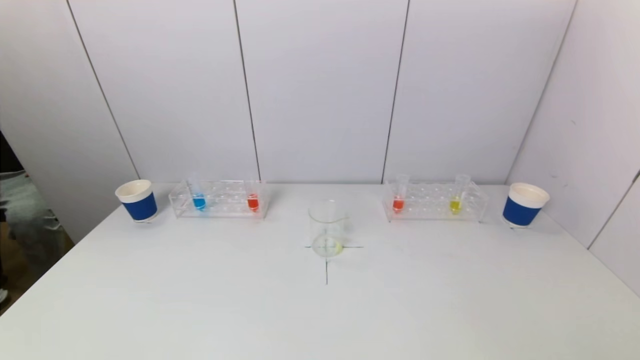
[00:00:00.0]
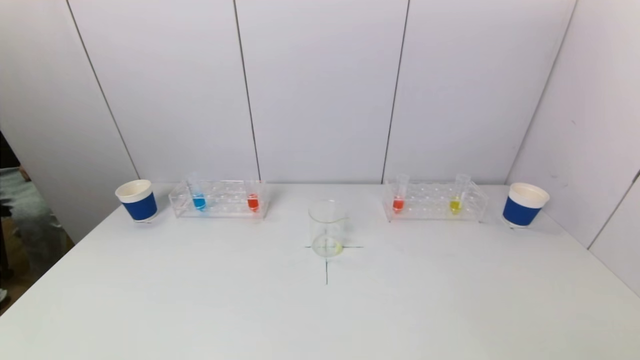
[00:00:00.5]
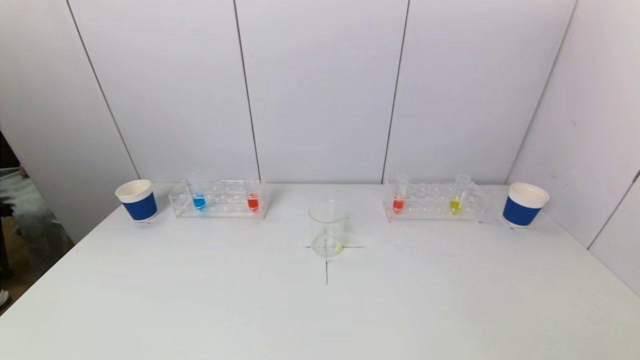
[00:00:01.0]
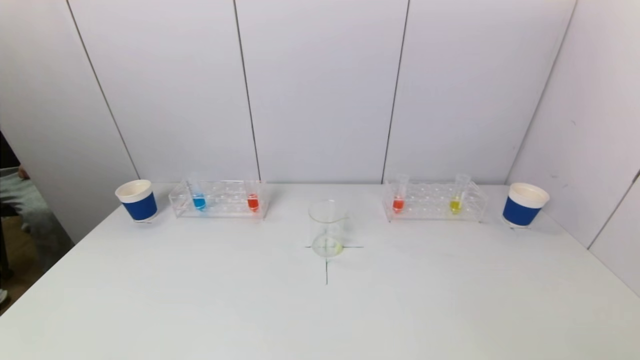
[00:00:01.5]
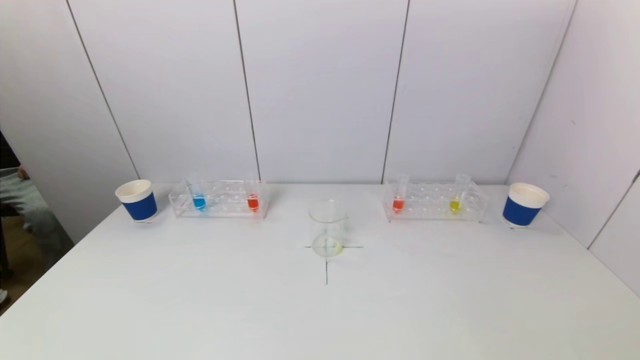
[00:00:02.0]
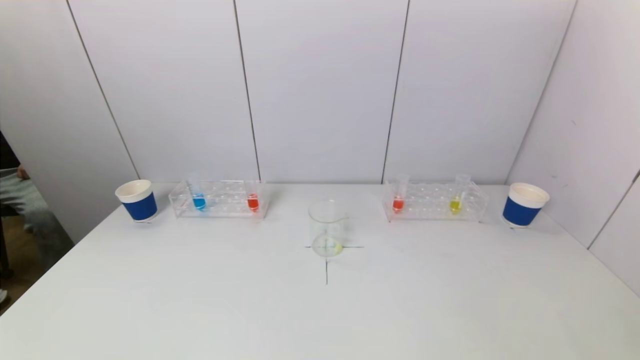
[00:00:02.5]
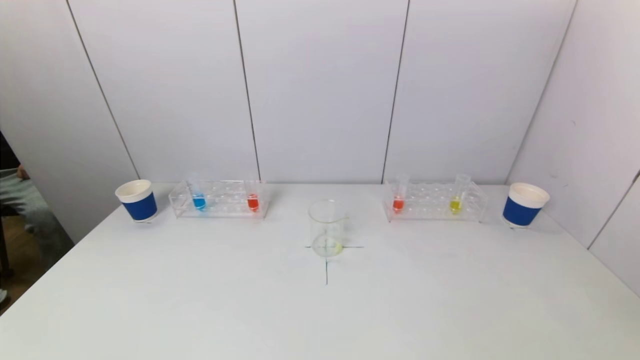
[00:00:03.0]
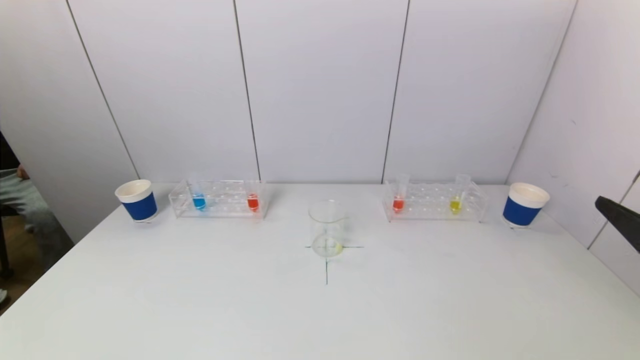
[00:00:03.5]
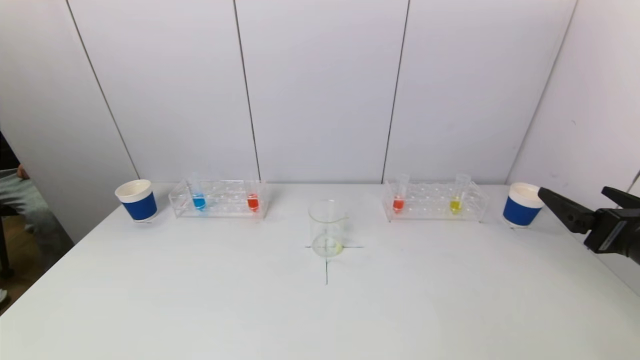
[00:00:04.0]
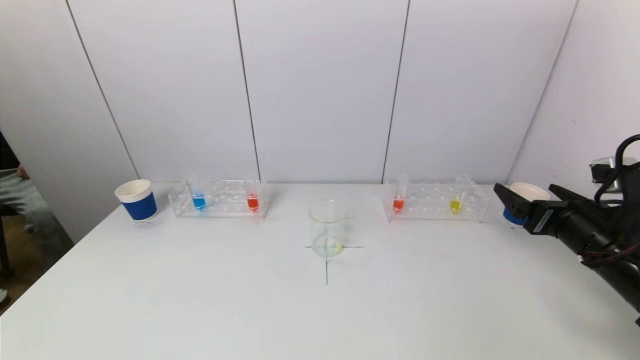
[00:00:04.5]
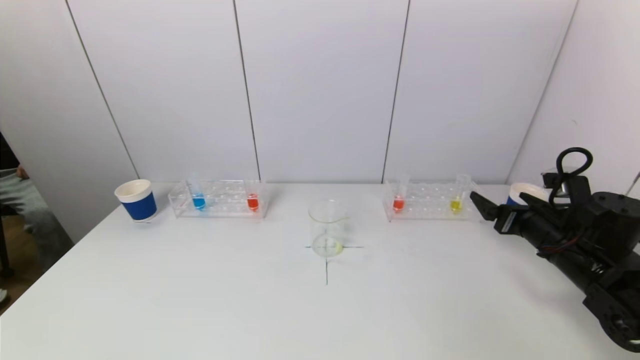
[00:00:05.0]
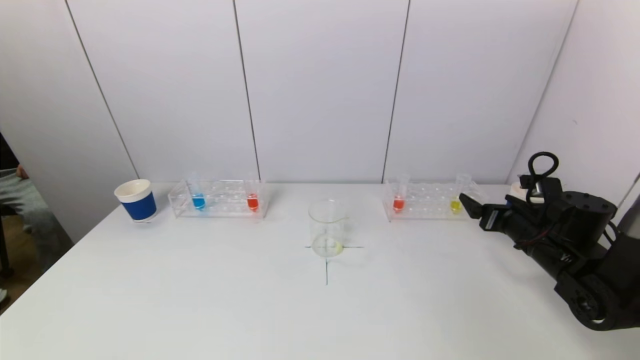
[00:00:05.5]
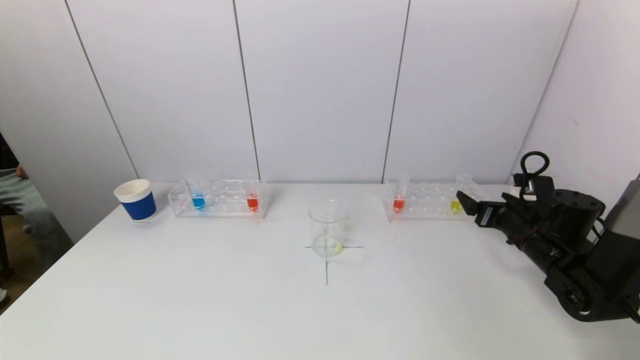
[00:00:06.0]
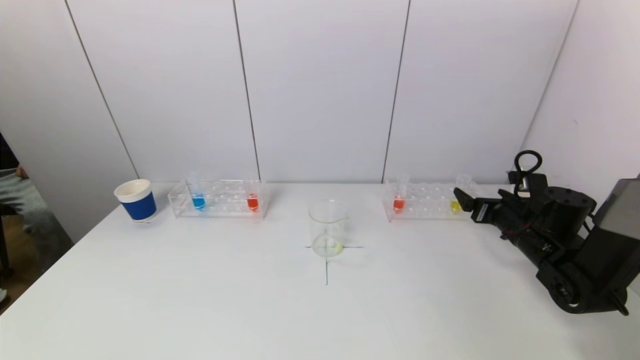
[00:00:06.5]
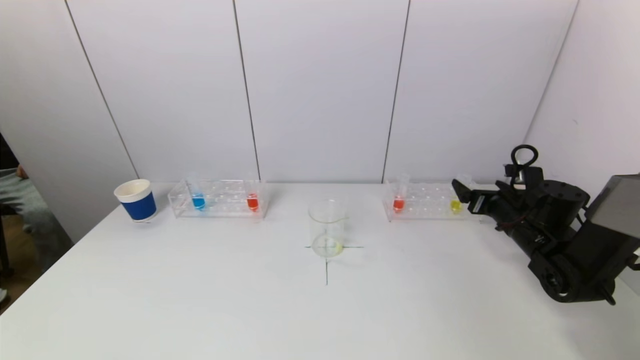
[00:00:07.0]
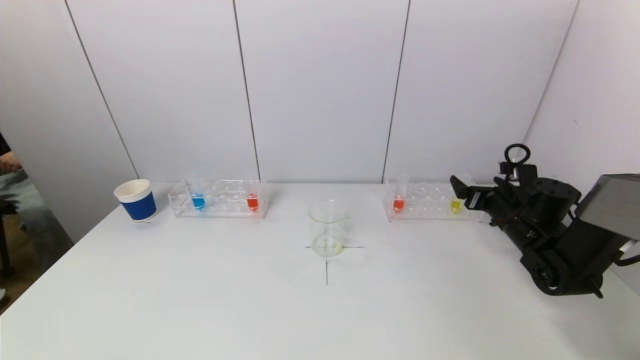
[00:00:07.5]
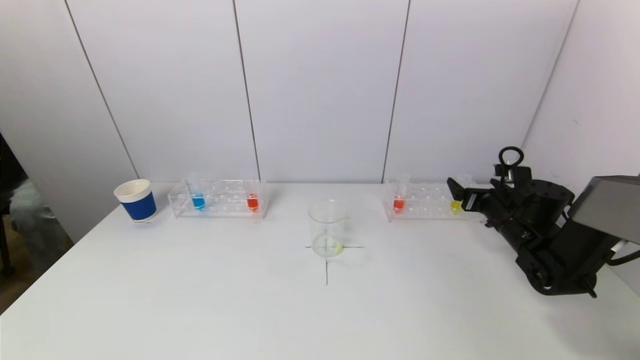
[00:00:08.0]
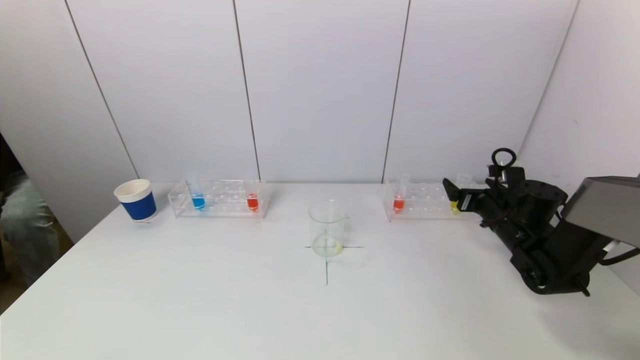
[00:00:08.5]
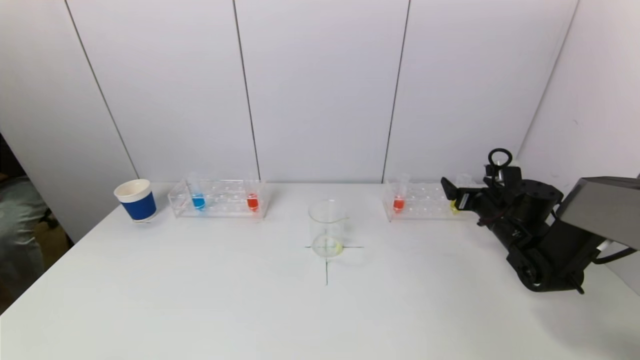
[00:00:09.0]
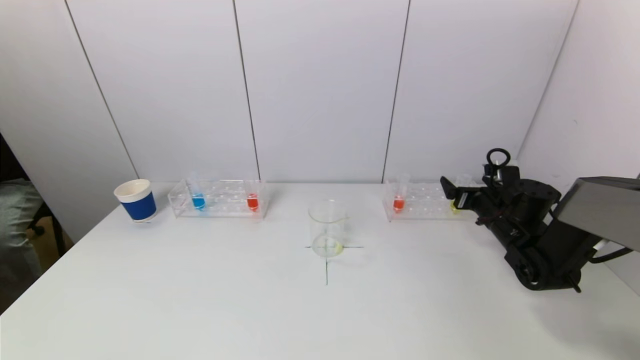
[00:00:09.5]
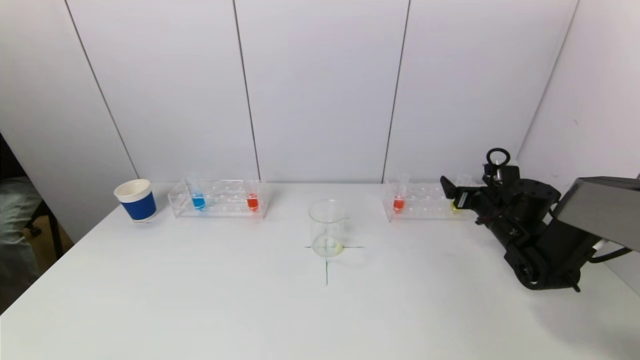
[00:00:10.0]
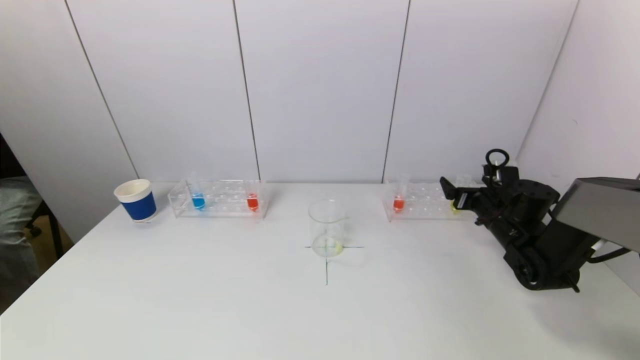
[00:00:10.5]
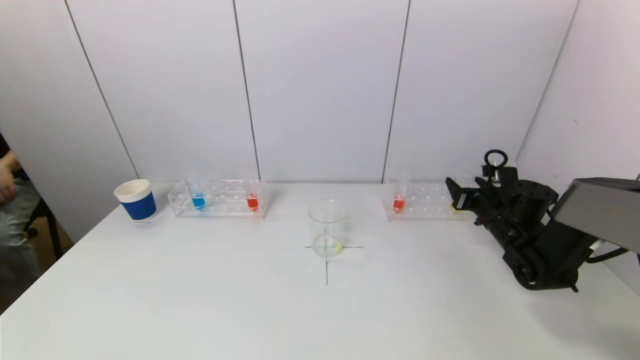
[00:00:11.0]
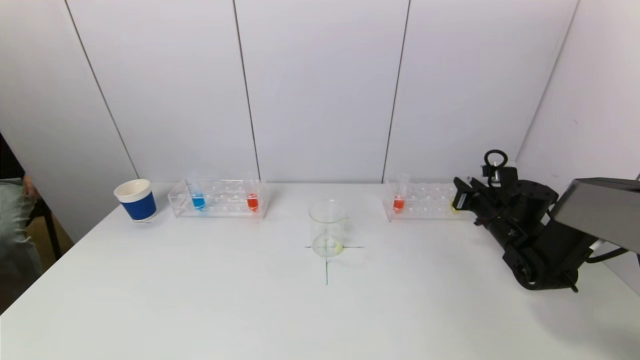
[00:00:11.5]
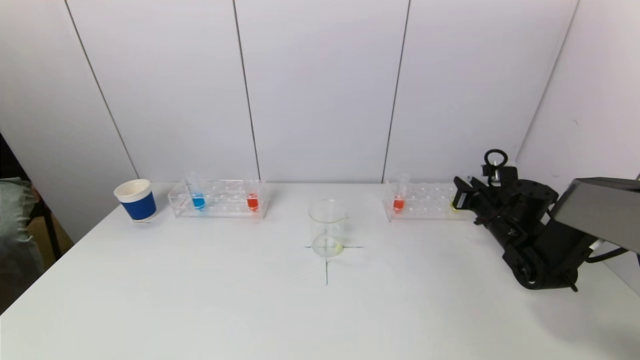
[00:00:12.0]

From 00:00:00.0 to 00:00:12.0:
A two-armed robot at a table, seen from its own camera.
Task of the whole recording: pick up a test tube with pigment on left test tube rack and a test tube with pigment on right test tube rack by grippers and pour them into the beaker.
Step, from 00:00:00.0 to 00:00:11.5: Grasp the yellow reagent with the right gripper.
From 00:00:02.0 to 00:00:04.0: The right gripper goes about 20 cm forward.
From 00:00:04.0 to 00:00:06.0: The right gripper moves forward and downward, roughly 20 cm.
From 00:00:06.0 to 00:00:08.0: The right gripper heads forward, covering roughly 5 cm.
From 00:00:08.0 to 00:00:10.0: The grippers make only small movements.
From 00:00:10.0 to 00:00:12.0: The right gripper closes.

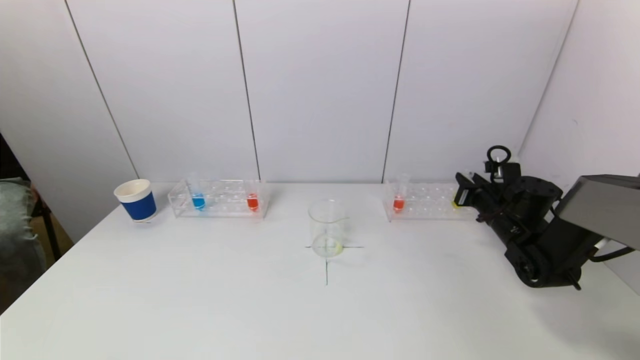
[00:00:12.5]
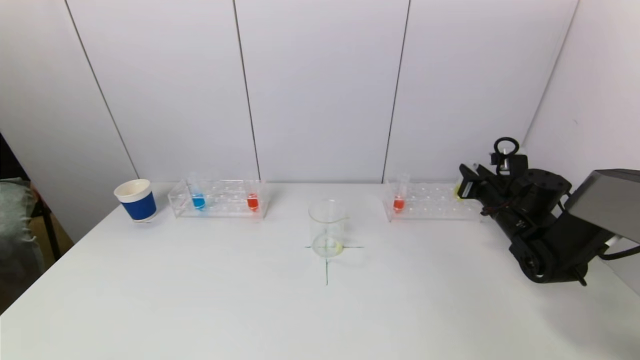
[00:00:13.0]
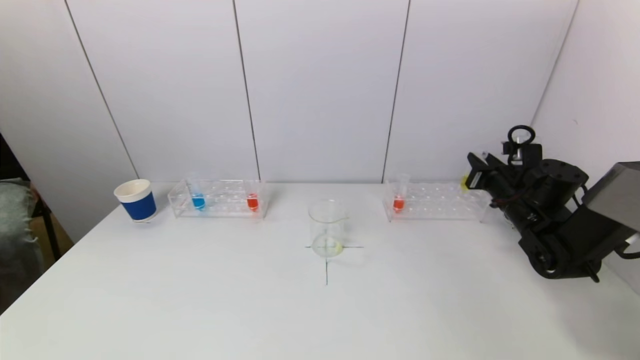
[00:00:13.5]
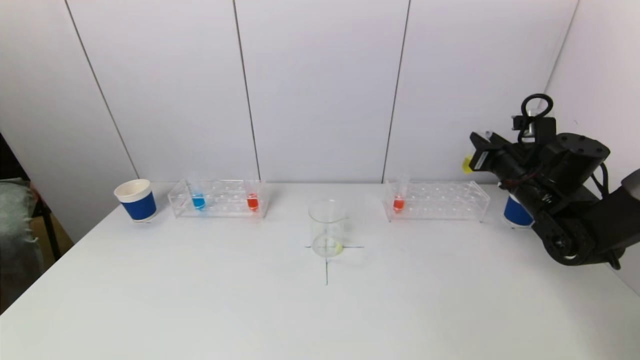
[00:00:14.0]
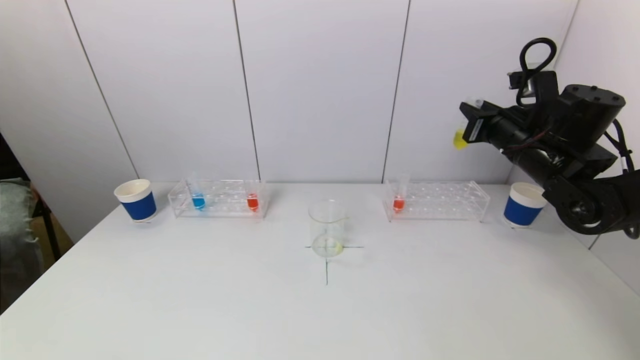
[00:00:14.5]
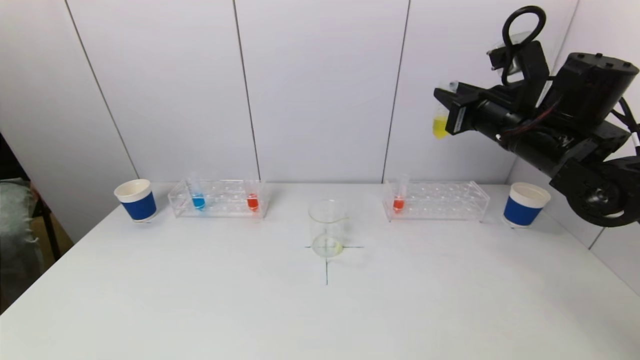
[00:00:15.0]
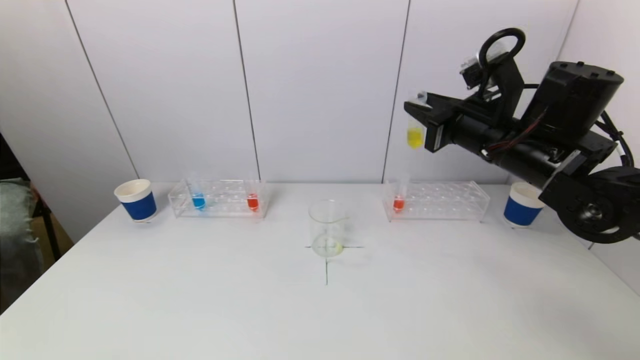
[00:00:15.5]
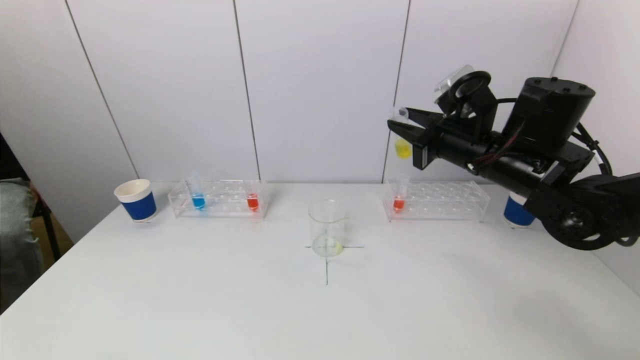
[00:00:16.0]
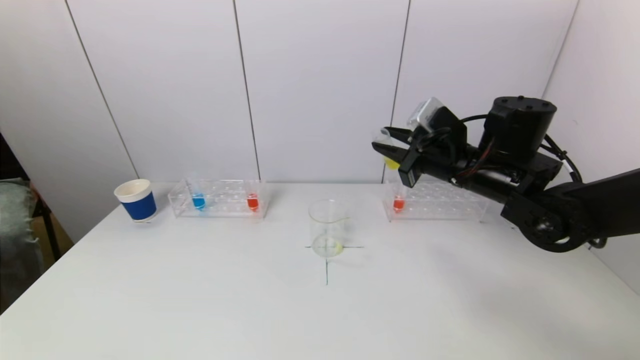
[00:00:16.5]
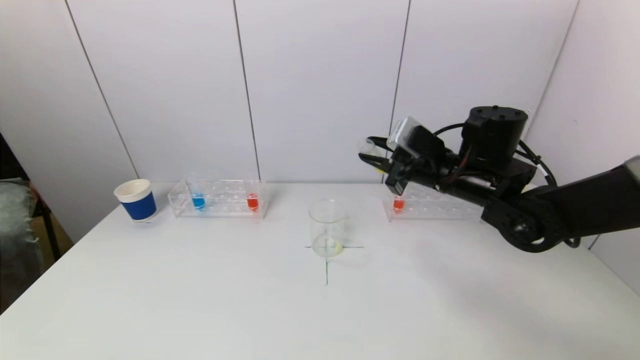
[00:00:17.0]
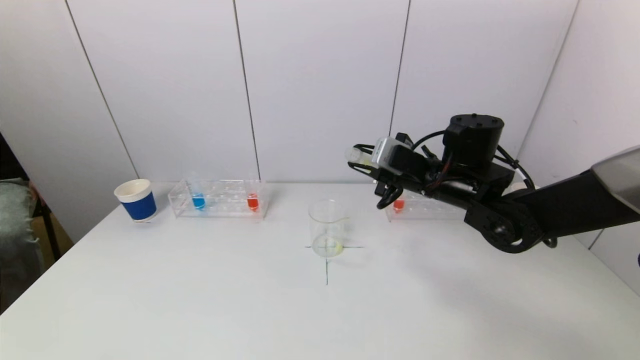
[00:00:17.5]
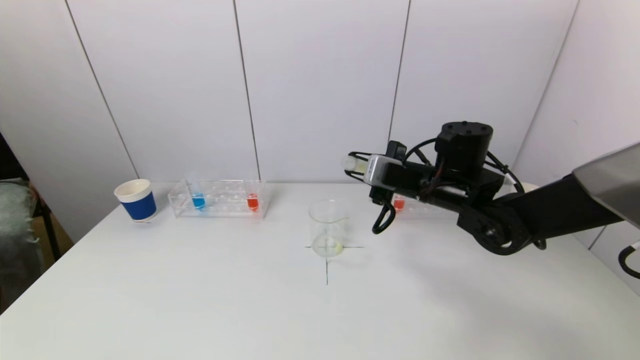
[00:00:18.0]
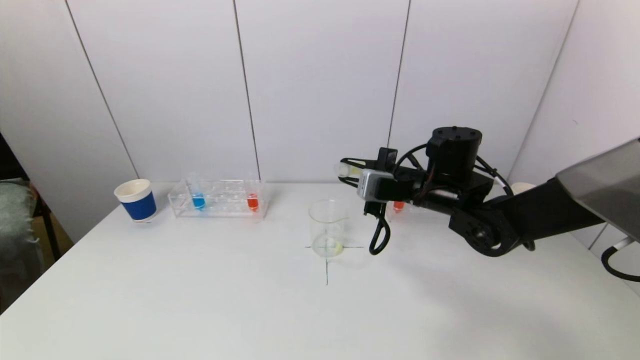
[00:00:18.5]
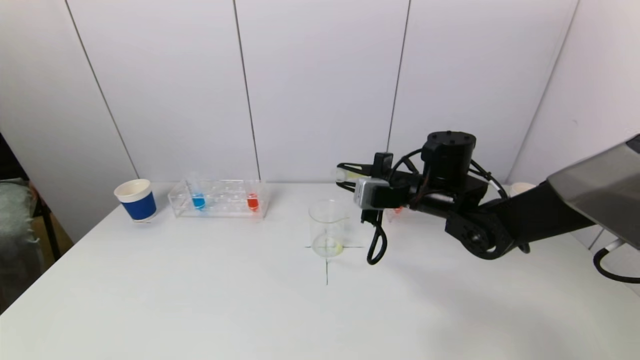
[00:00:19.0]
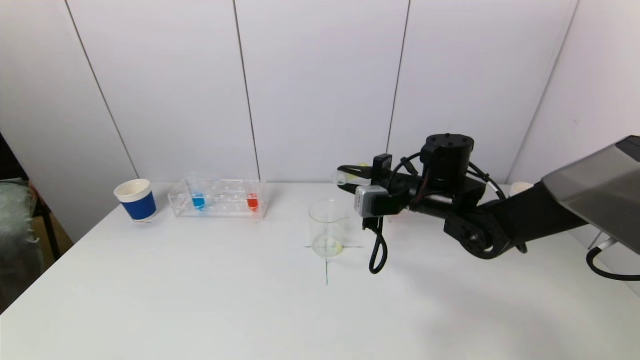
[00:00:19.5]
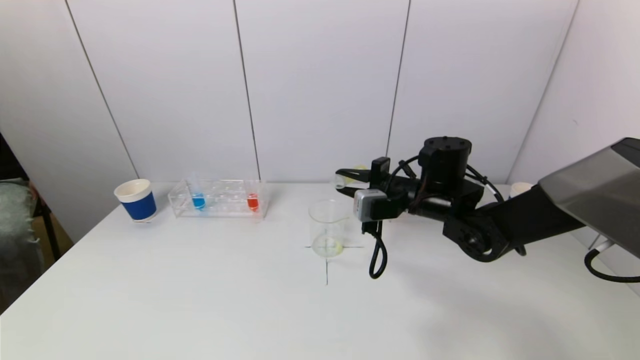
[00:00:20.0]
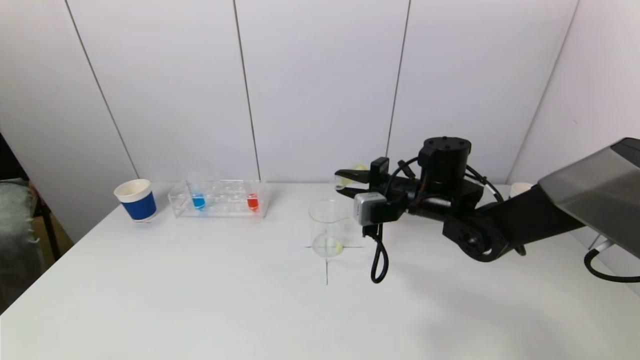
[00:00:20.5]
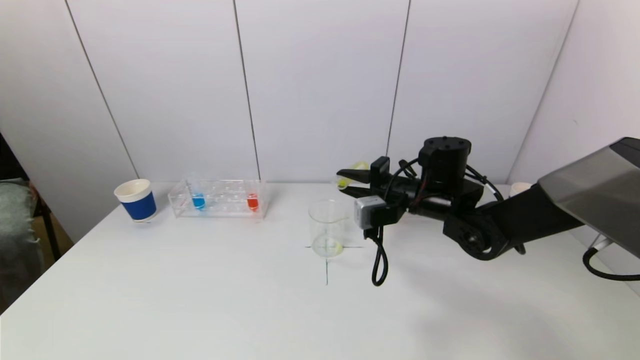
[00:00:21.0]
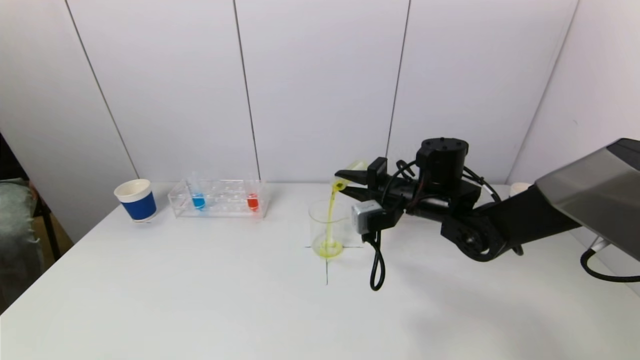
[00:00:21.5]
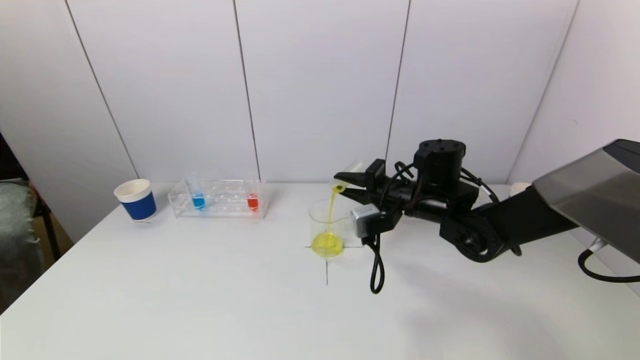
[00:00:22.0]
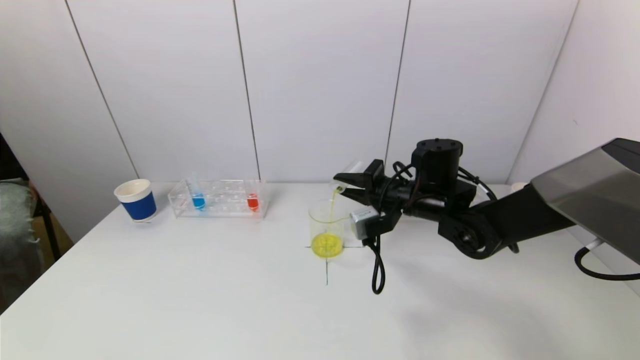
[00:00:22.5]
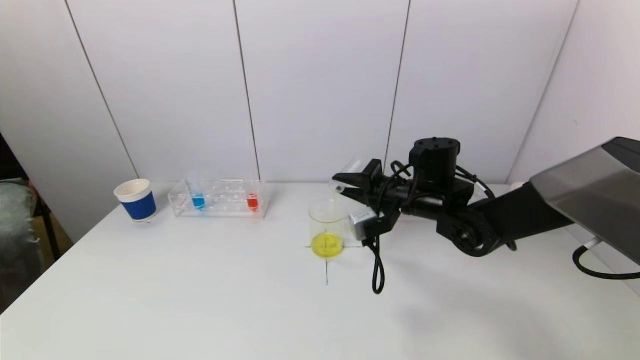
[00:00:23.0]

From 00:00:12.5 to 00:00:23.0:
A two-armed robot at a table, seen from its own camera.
Task of the whole recording: pick up a test tube with pigment on left test tube rack and a test tube with pigment on right test tube rack by grippers and pour them into the beaker.
From 00:00:12.5 to 00:00:14.5: The right gripper is displaced upward by approximately 15 cm.
From 00:00:14.5 to 00:00:16.5: The right gripper is displaced to the left by approximately 10 cm.
From 00:00:16.5 to 00:00:19.0: The right gripper travels downward by about 5 cm.
From 00:00:19.0 to 00:00:21.0: The grippers stay close to where they were, moving slightly.
From 00:00:21.0 to 00:00:23.0: The grippers stay close to where they were, moving slightly.
